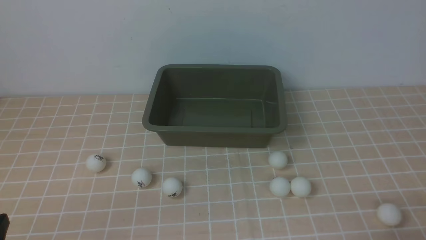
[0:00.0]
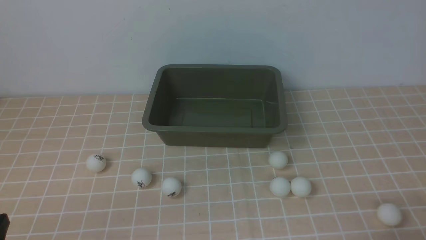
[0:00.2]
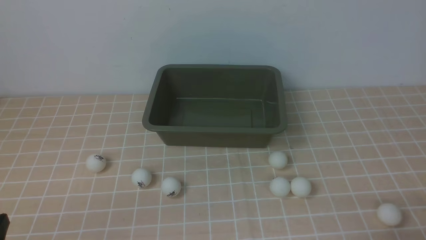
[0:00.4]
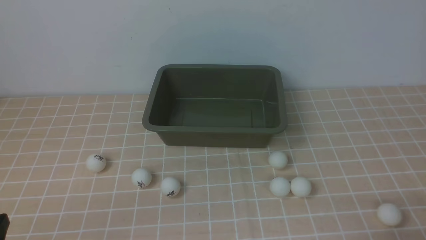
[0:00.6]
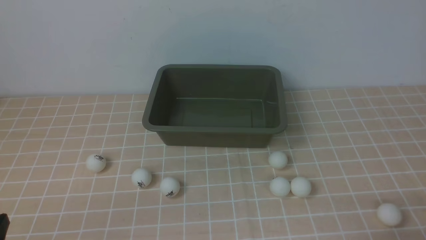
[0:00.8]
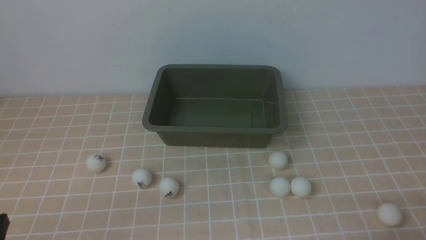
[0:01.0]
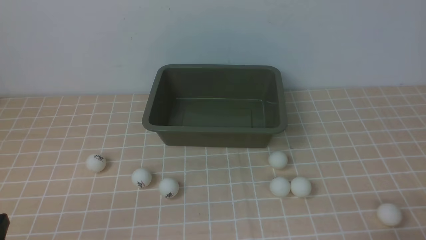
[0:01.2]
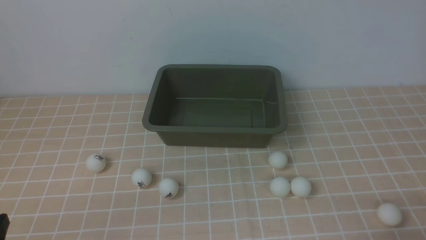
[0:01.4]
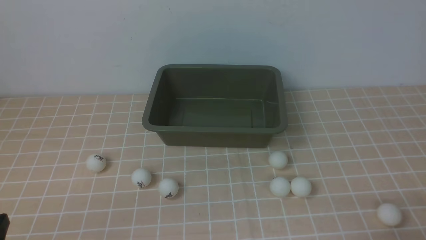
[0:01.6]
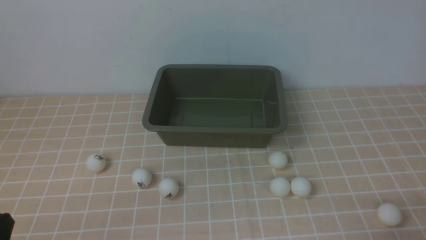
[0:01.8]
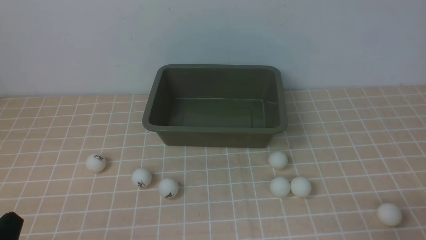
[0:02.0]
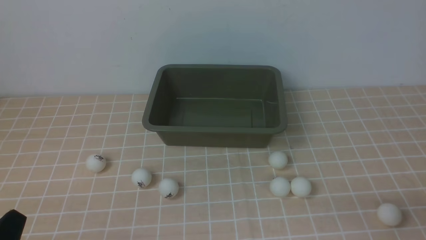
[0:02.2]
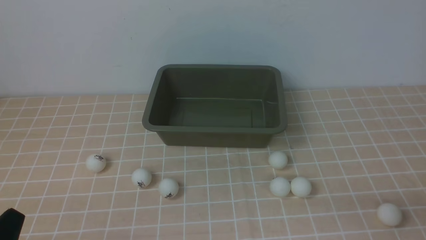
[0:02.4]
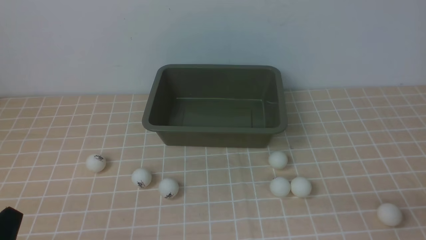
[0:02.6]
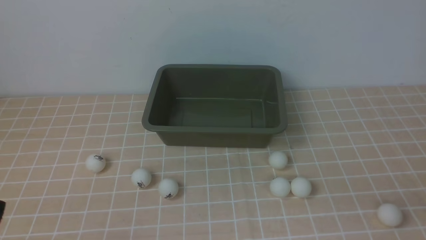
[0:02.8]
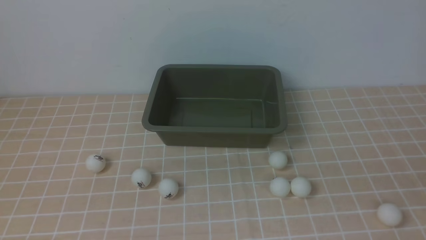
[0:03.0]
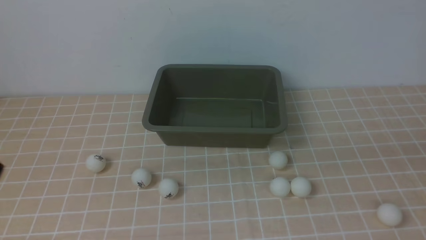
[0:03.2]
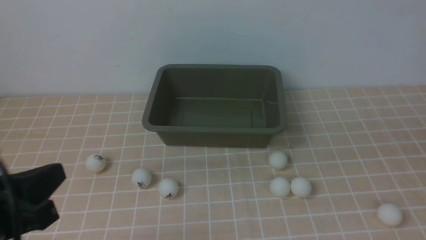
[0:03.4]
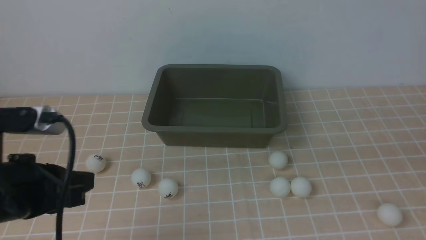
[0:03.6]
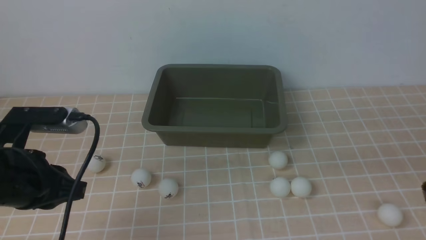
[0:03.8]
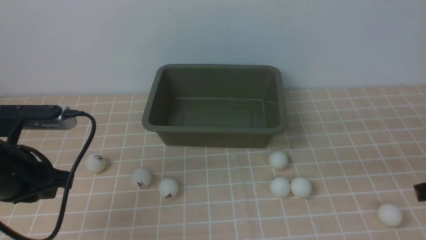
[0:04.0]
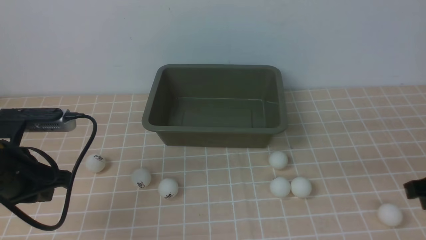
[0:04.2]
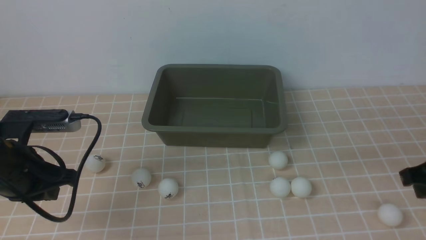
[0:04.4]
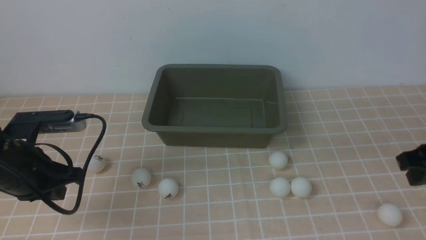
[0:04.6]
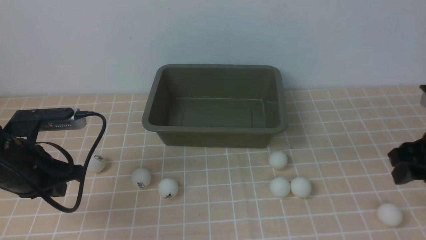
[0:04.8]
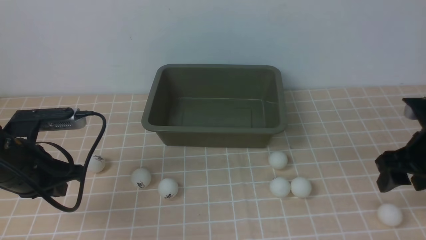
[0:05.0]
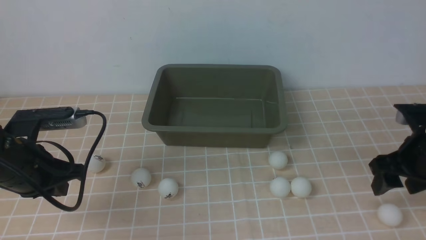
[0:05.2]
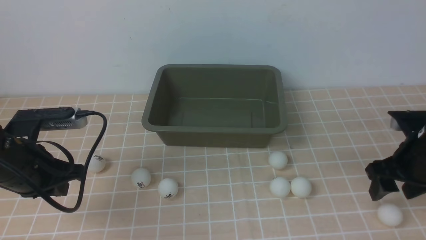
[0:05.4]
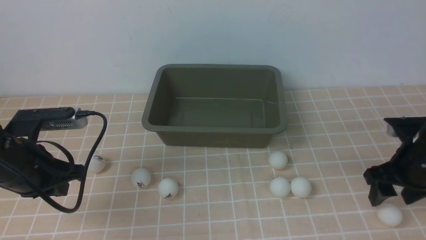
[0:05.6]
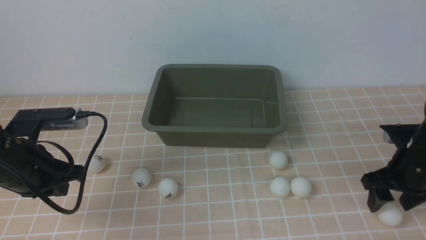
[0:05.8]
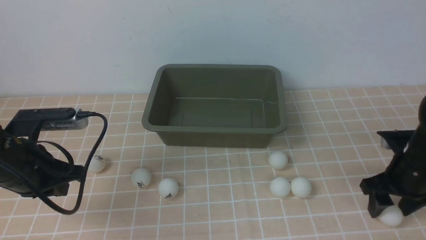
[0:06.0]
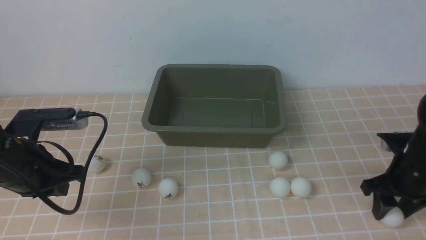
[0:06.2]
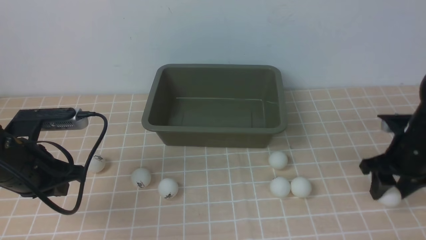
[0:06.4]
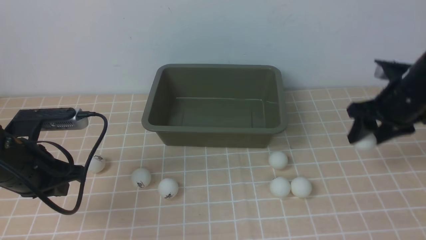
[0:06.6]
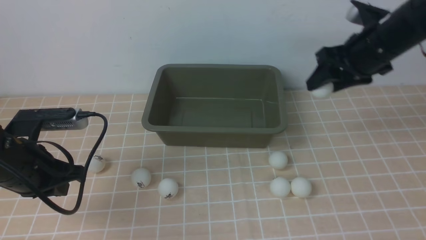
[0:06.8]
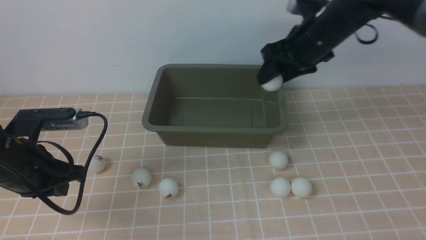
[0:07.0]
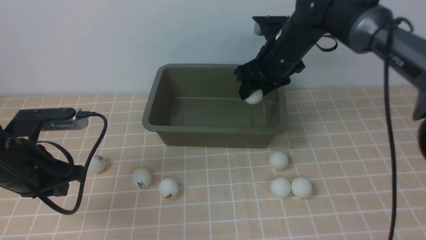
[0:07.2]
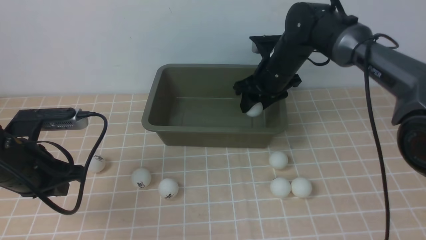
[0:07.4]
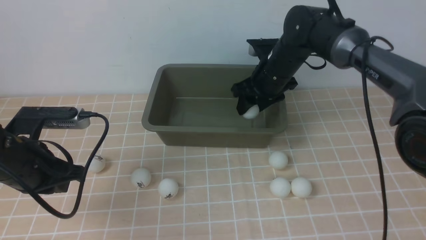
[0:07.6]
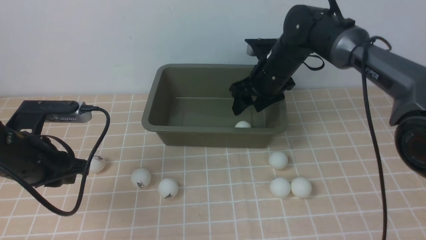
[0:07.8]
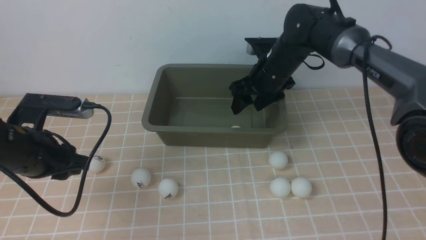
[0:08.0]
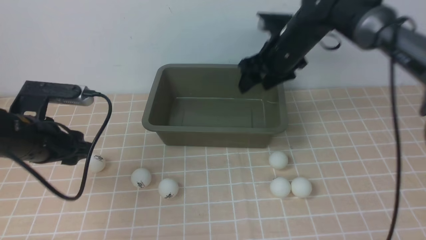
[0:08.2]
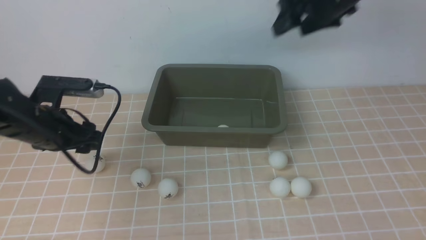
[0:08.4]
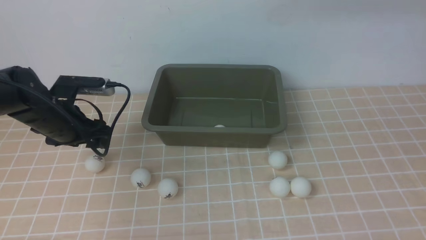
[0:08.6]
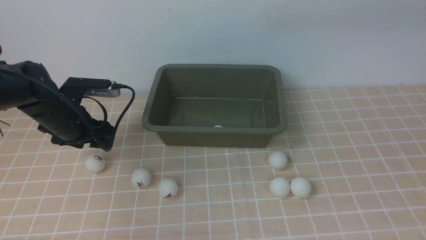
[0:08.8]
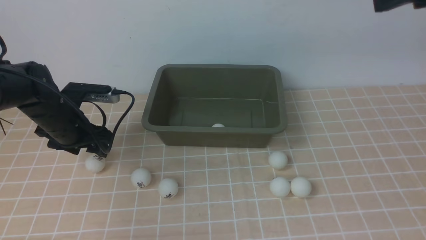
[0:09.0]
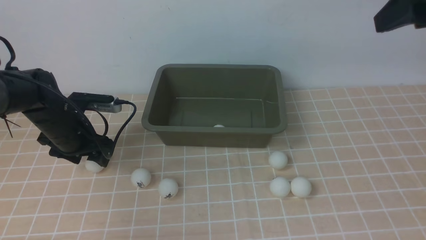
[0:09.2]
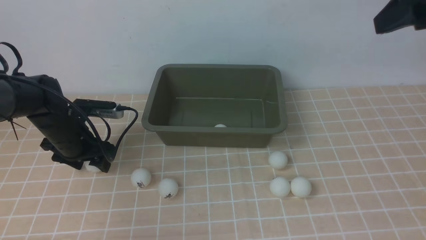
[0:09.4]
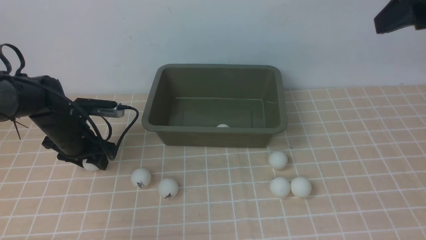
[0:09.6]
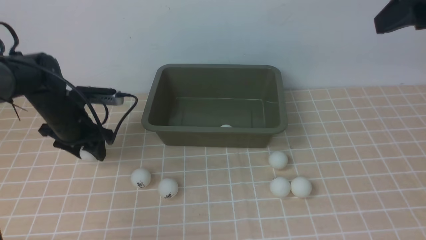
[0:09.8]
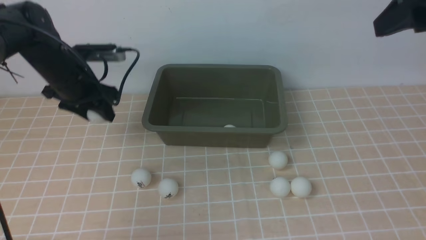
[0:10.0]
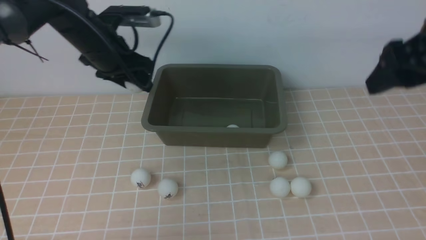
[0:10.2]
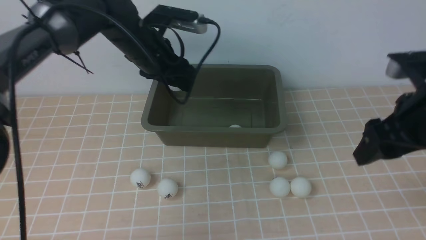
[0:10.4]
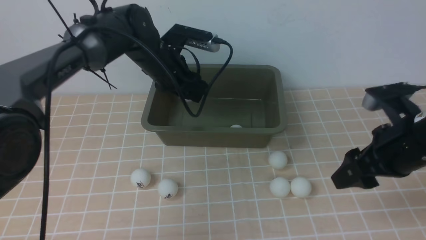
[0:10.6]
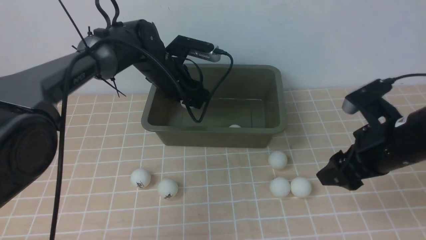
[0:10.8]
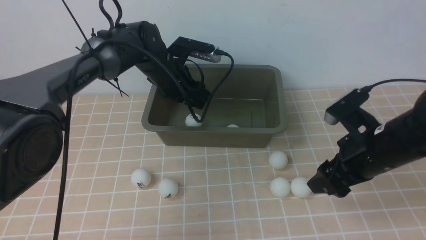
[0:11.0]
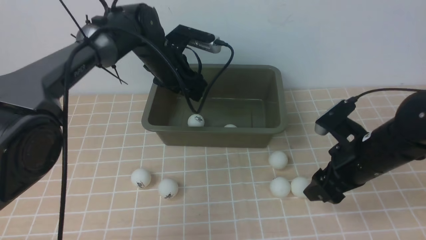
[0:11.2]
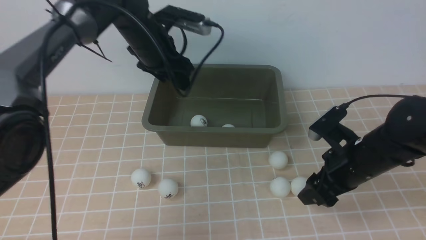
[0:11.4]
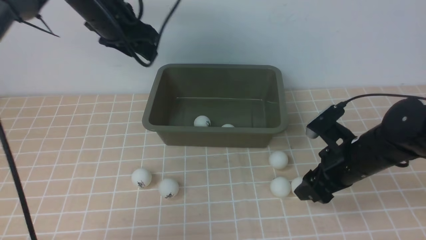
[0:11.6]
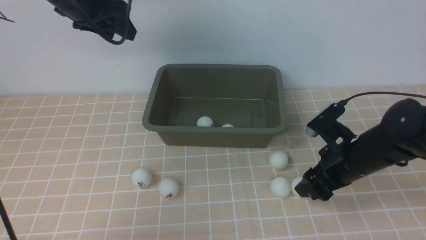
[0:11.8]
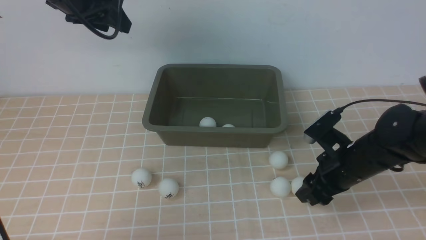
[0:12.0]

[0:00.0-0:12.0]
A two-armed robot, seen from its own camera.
Step, 0:00.0 to 0:06.8: use the right arm to clamp the table tennis ball closest to it.
Step, 0:07.0 to 0:07.6: use the right arm to put the table tennis ball into the box.
Step, 0:07.8 to 0:10.0: use the left arm to clamp the table tennis ball closest to it.
Step, 0:10.2 to 0:10.8: use the left arm to put the table tennis ball into the box.
0:00.0 to 0:01.6: Both grippers stay put.
0:03.0 to 0:04.4: The left gripper heads forward, covering approximately 20 cm.
0:04.4 to 0:06.0: The right gripper goes some 15 cm downward and forward, and opens its fingers.
0:06.0 to 0:07.6: The right gripper moves to the left and forward, roughly 25 cm.
0:07.6 to 0:09.0: The right gripper is displaced upward, backward and to the right by approximately 35 cm. Meanwhile the left gripper moves forward and downward, some 15 cm, and opens up.
0:09.0 to 0:10.4: The right gripper shifts about 15 cm downward. Meanwhile the left gripper moves to the right, upward and forward, roughly 20 cm.
0:10.4 to 0:12.0: The left gripper is displaced upward and to the left by some 15 cm; the right gripper shifts roughly 15 cm downward.

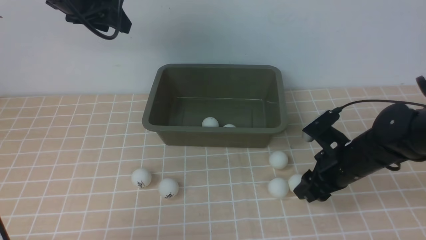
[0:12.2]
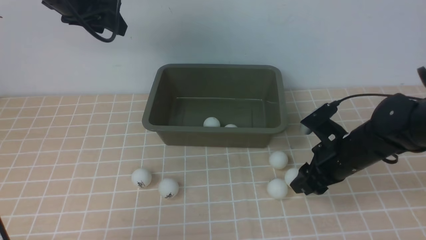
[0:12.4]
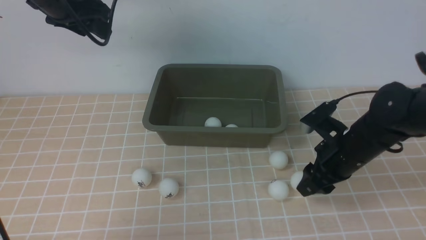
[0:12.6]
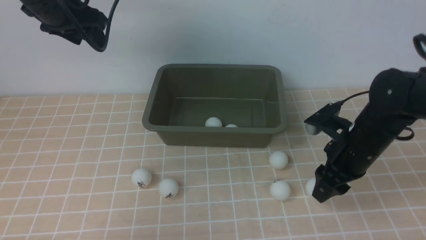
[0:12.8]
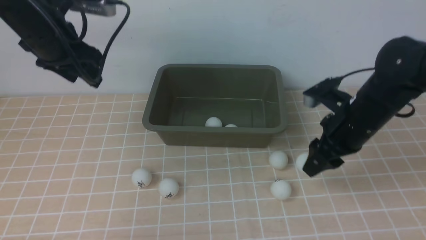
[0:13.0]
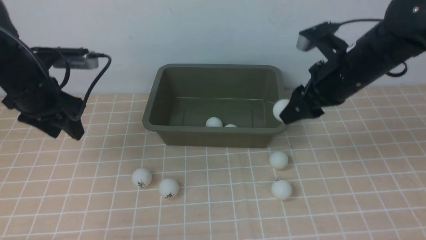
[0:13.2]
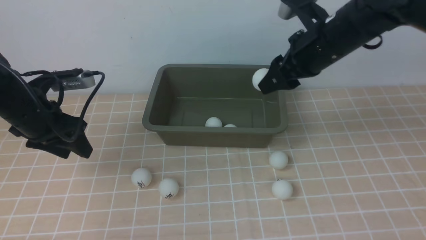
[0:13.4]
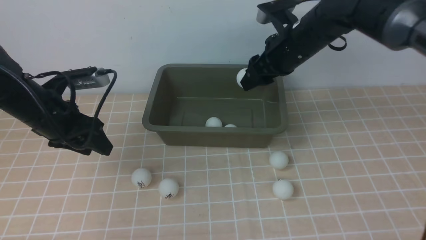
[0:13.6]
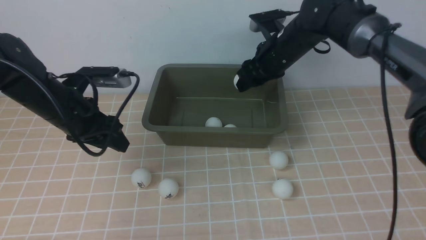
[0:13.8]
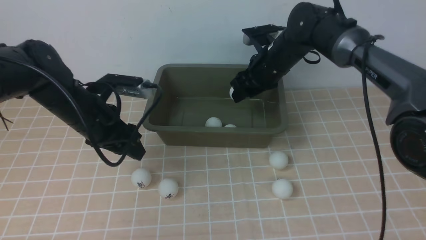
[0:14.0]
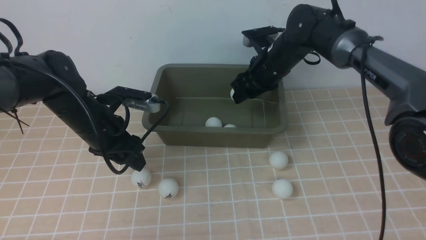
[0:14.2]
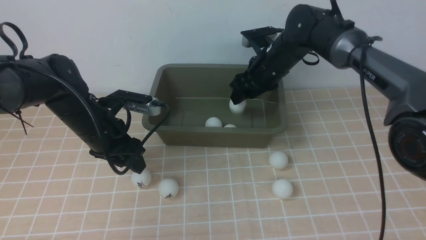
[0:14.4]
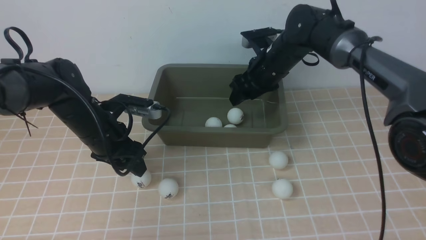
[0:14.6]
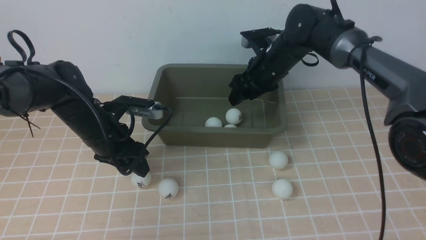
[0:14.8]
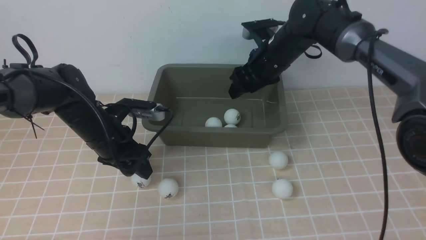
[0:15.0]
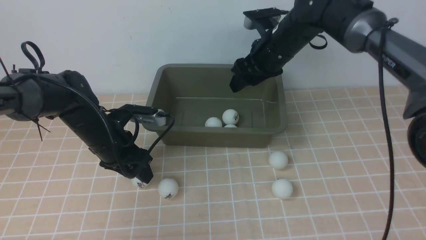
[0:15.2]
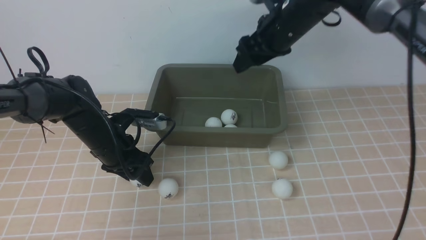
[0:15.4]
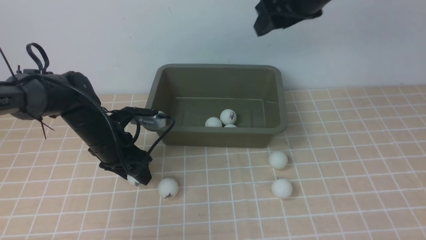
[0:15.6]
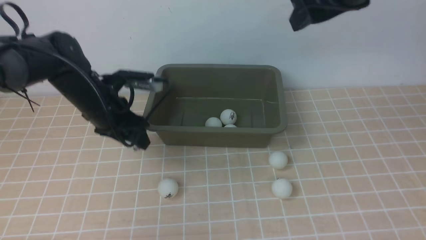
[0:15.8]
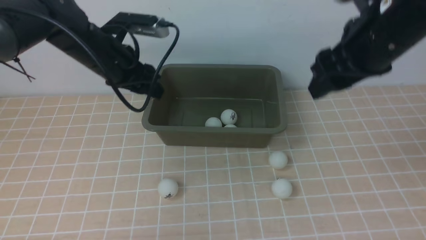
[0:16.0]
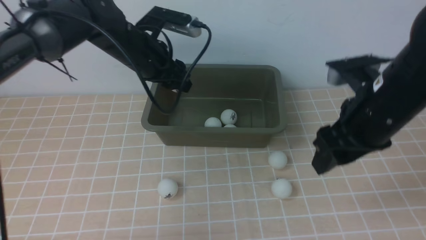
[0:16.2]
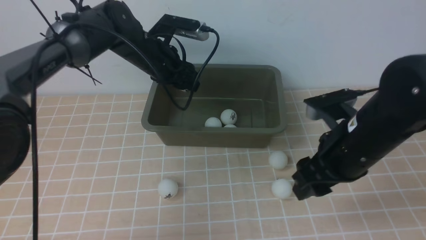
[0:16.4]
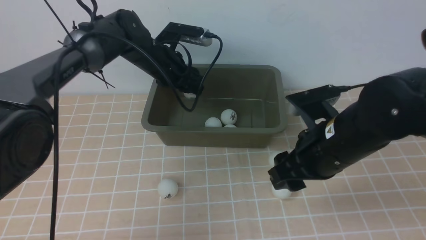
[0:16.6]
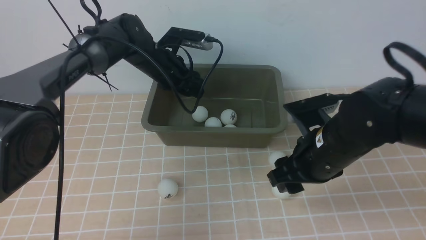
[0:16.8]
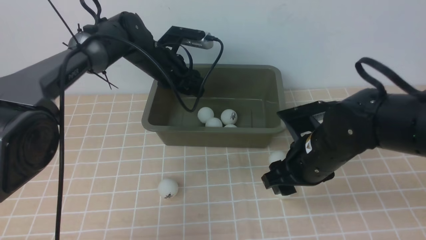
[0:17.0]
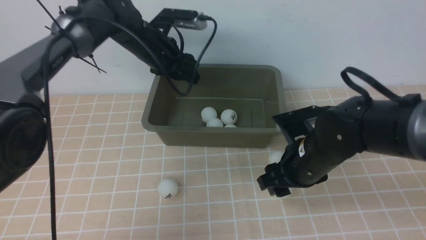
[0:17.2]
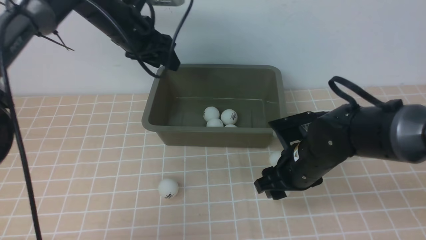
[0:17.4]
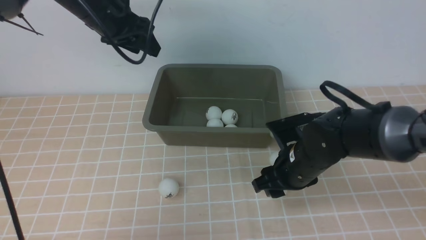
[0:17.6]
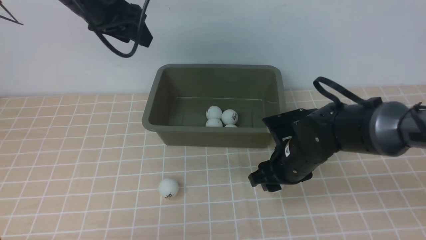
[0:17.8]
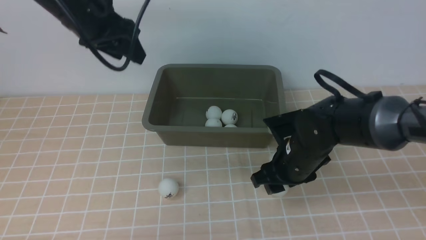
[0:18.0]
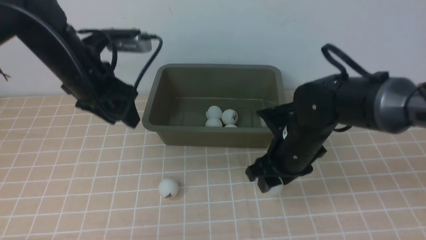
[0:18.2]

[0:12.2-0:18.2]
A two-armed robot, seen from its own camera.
Step, 0:12.2 to 0:13.4: use the right arm to clamp the table tennis ball closest to it.
Step, 0:13.6 to 0:14.6: use the right arm to put the table tennis ball into the box.
Step, 0:15.0 to 0:16.0: use the left arm to clamp the table tennis ball closest to it.
Step, 0:16.2 to 0:17.0: use the left arm to put the table tennis ball into the box.
0:12.2 to 0:13.8: The left gripper heads downward and backward, covering about 20 cm. Meanwhile the right gripper shifts approximately 20 cm forward, upward and to the left.
0:13.8 to 0:15.2: The left gripper heads downward, covering roughly 5 cm.
0:15.2 to 0:16.6: The right gripper goes roughly 20 cm backward, while the left gripper goes roughly 15 cm forward, to the right and upward.
0:16.6 to 0:18.2: The right gripper heads forward, covering some 5 cm, and moves some 10 cm downward and comes back. Meanwhile the left gripper is displaced backward, to the left and upward by about 15 cm.
